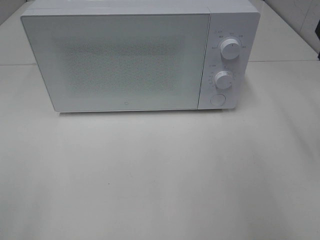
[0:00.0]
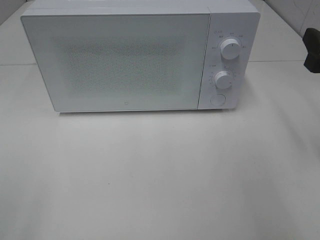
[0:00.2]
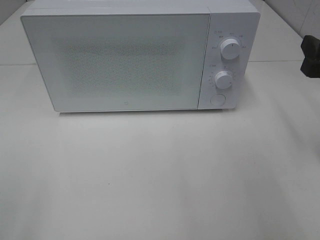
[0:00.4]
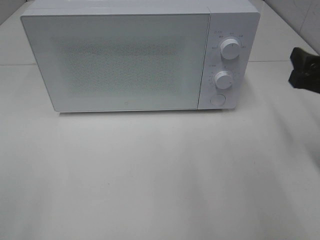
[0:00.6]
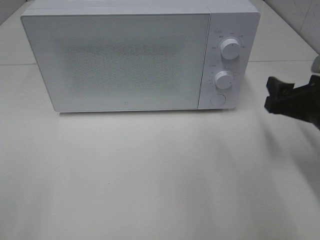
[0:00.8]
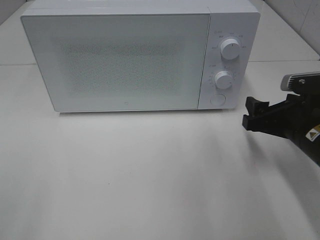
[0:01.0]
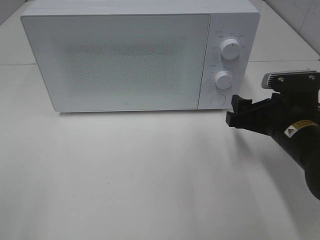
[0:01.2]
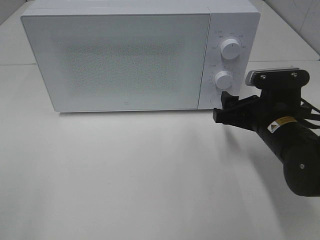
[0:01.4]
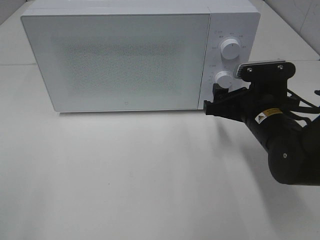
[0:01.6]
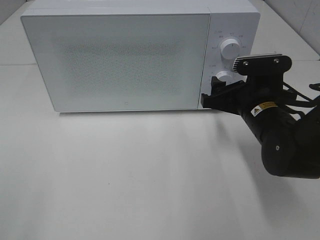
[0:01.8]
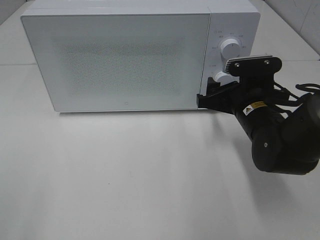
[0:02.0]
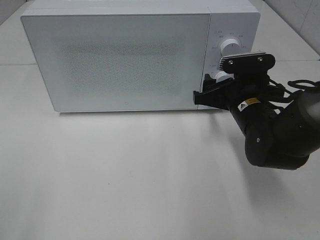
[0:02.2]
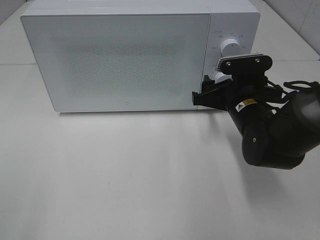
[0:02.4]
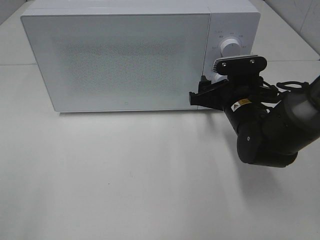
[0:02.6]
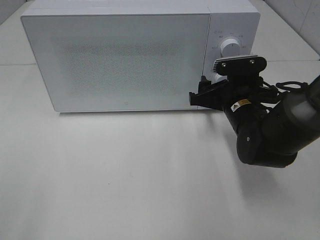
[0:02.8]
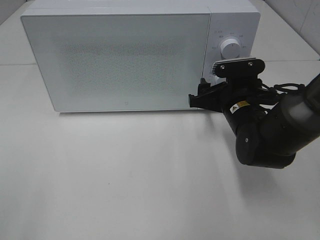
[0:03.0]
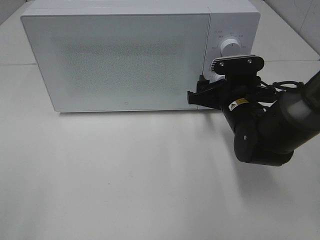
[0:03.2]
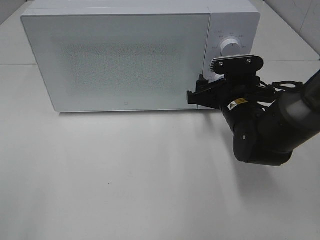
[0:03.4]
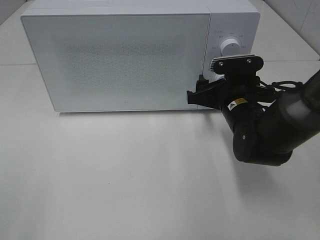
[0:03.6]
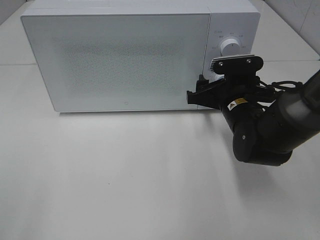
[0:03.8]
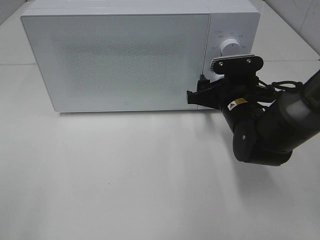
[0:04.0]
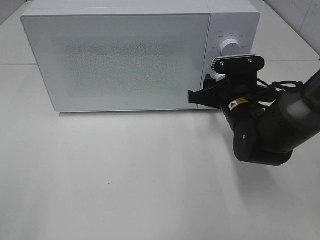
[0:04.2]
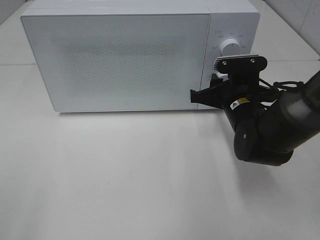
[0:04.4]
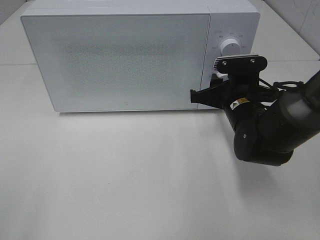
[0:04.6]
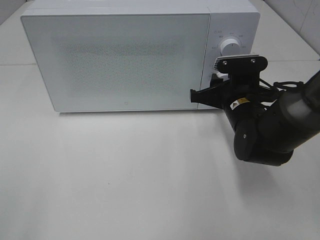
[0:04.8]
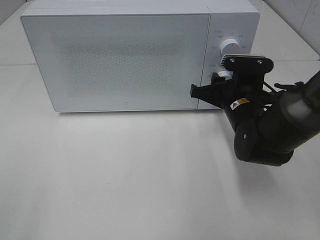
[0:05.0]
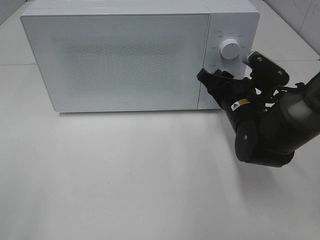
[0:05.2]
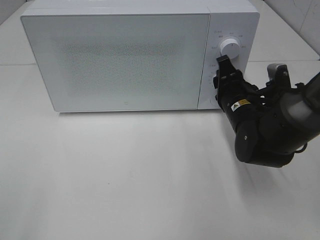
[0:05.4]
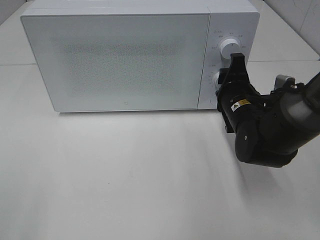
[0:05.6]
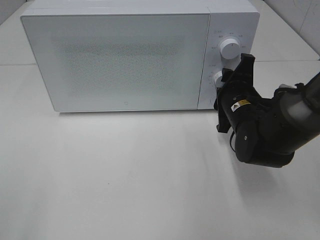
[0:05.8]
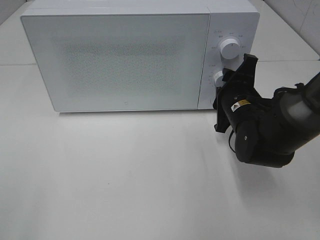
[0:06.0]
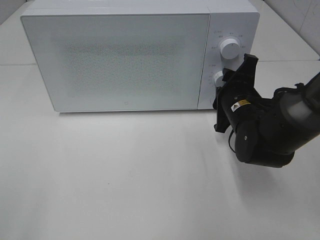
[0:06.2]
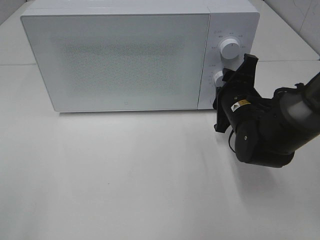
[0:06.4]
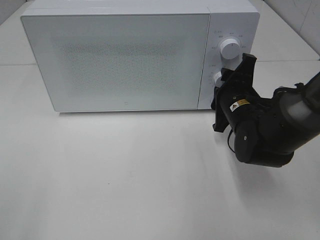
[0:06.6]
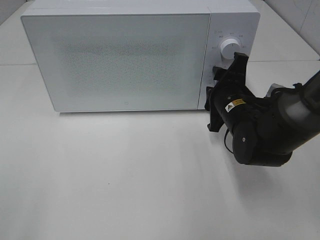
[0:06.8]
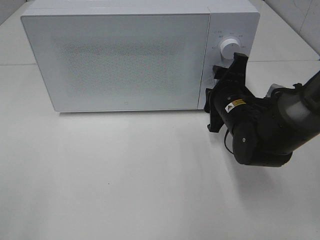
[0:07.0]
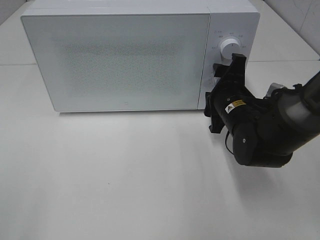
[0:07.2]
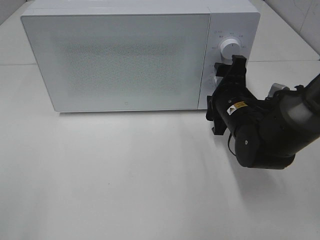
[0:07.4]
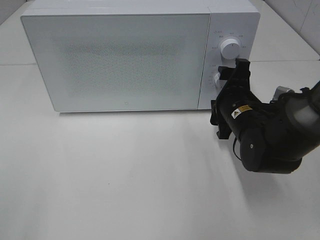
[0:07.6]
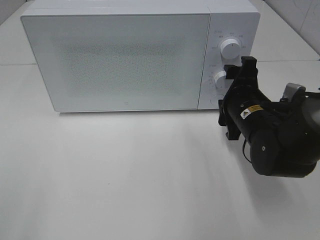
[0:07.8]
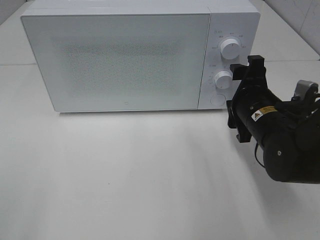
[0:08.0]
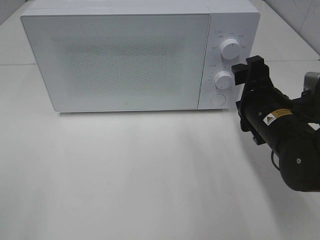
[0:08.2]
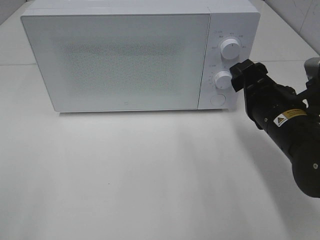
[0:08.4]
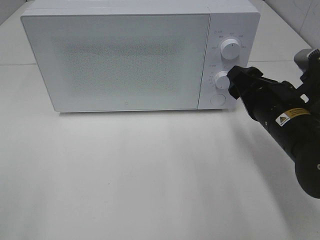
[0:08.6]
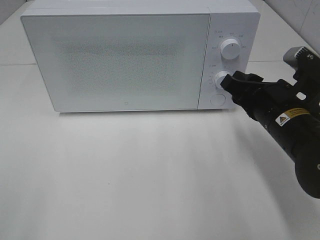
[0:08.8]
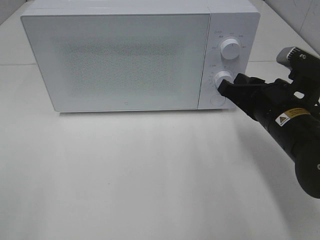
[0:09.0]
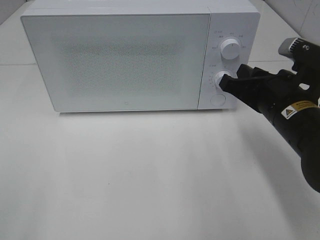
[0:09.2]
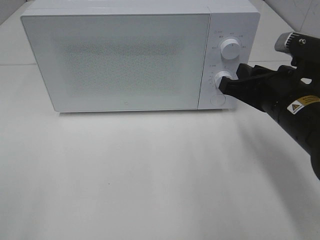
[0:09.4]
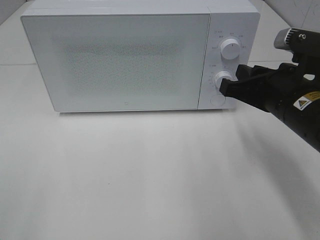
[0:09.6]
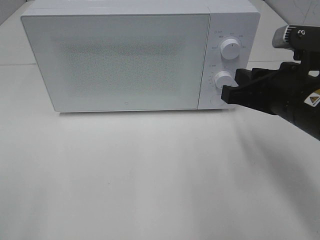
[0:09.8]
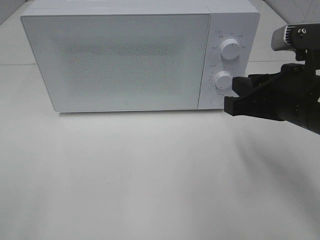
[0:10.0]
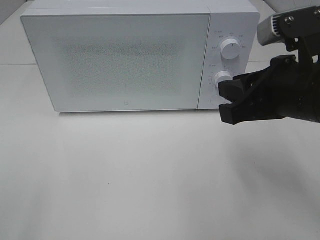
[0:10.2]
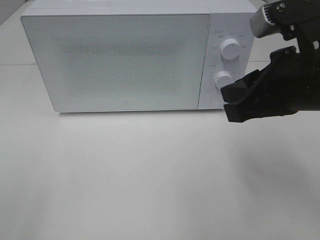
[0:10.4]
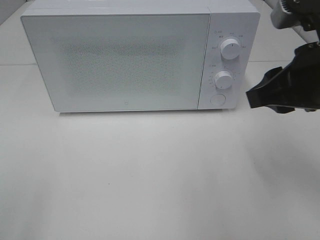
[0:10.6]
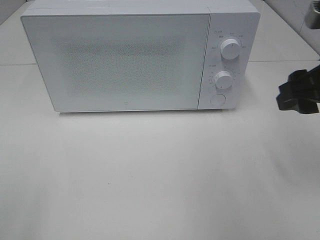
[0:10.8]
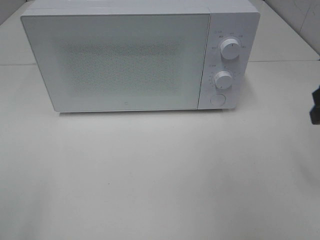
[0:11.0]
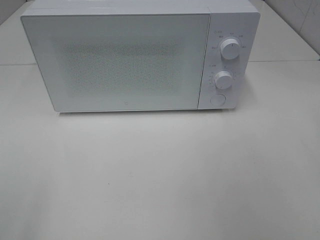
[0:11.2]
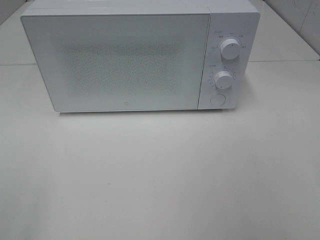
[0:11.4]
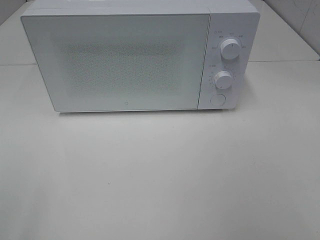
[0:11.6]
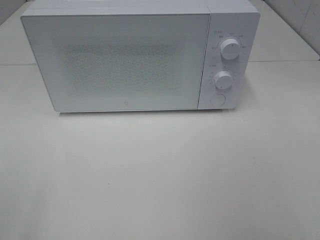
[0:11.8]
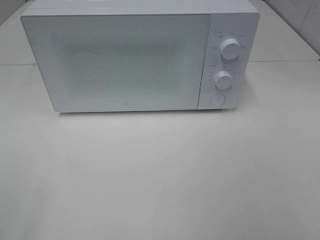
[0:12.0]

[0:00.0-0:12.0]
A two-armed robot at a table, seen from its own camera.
Task of the whole recording: Heat the burger.
Step, 0:00.0 to 0:06.8: Right hand: twist timer button.
0:00.0 to 0:01.6: The right gripper shifts about 20 cm downward, to the left and forward.
0:01.6 to 0:03.0: The right gripper changes place by about 5 cm.
0:03.0 to 0:04.4: The right gripper closes up.
0:06.0 to 0:07.6: There are only small adjustments of the grippers.
0:07.6 to 0:09.0: The right gripper is displaced backward by some 5 cm, and closes up.
0:09.0 to 0:10.4: The right gripper shifts roughly 10 cm upward.
0:10.4 to 0:12.0: The right gripper is displaced backward and to the right by roughly 25 cm, and opens.

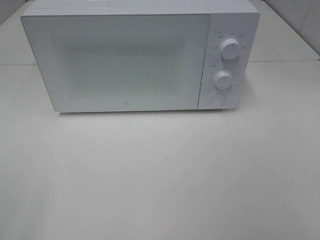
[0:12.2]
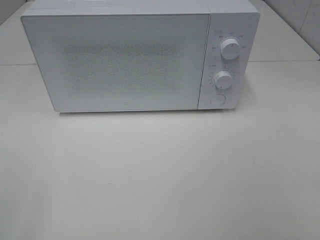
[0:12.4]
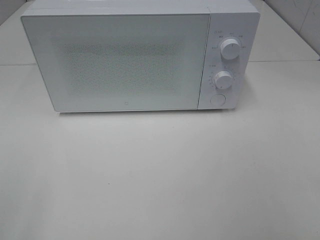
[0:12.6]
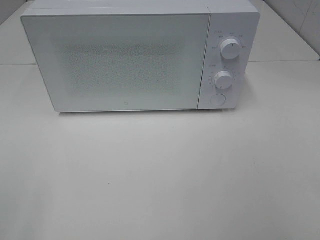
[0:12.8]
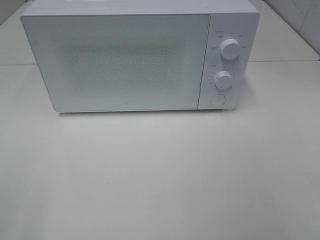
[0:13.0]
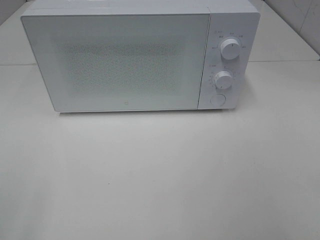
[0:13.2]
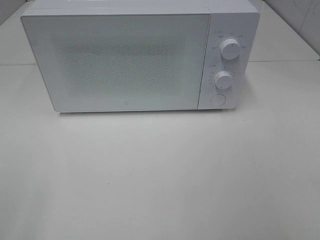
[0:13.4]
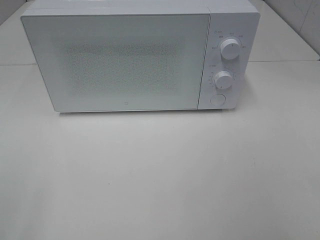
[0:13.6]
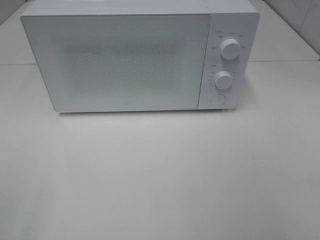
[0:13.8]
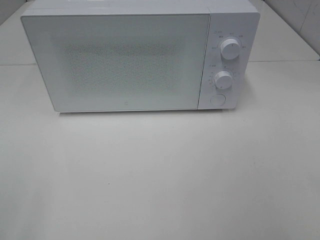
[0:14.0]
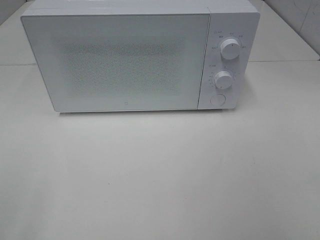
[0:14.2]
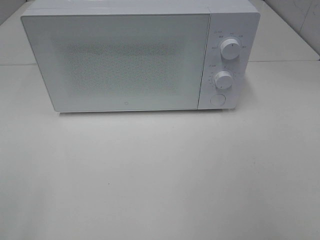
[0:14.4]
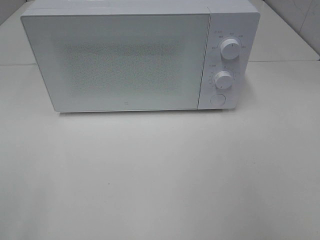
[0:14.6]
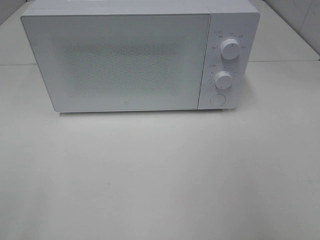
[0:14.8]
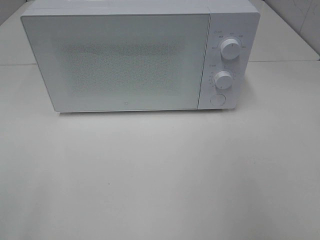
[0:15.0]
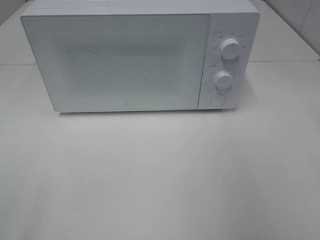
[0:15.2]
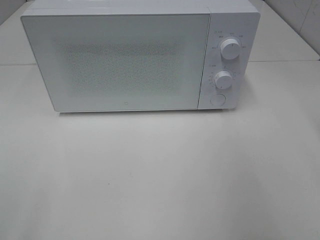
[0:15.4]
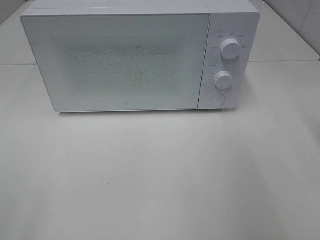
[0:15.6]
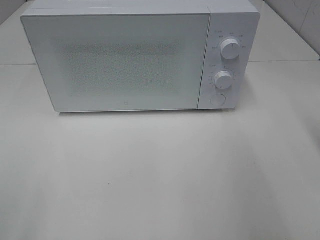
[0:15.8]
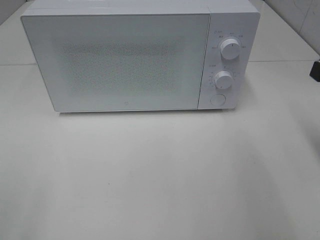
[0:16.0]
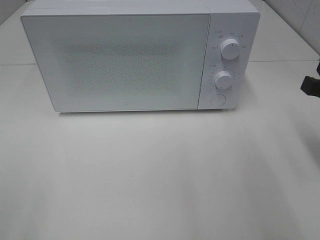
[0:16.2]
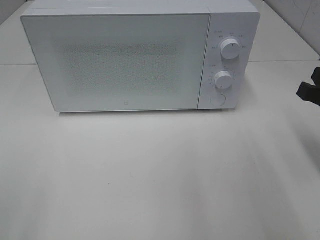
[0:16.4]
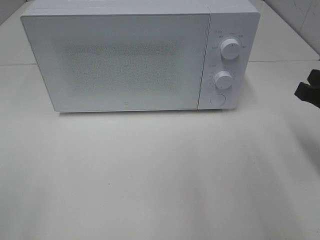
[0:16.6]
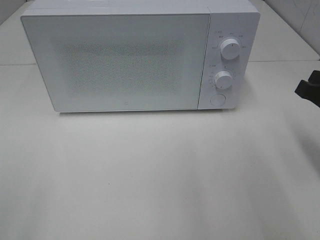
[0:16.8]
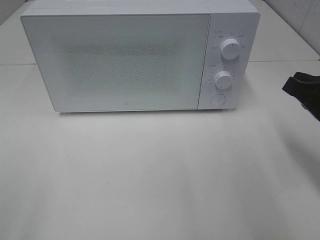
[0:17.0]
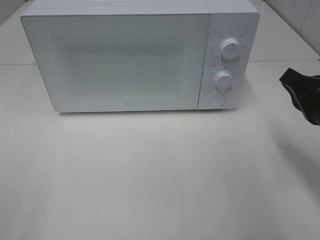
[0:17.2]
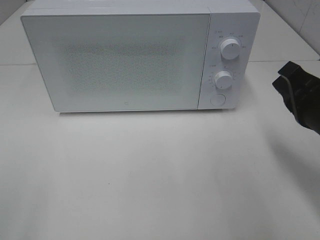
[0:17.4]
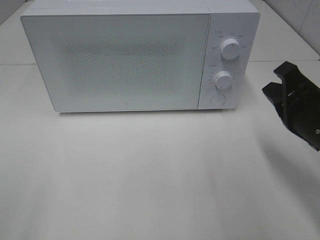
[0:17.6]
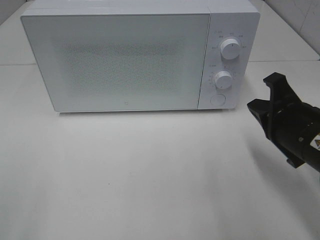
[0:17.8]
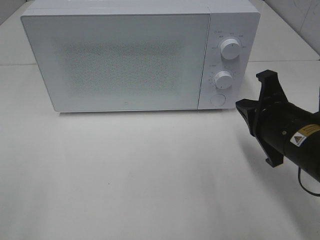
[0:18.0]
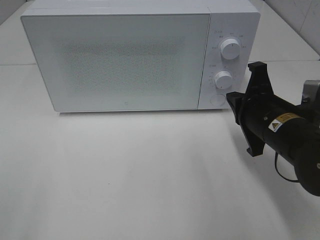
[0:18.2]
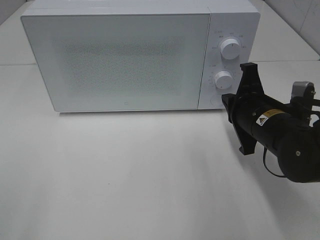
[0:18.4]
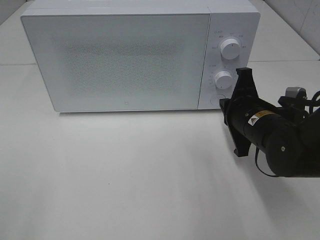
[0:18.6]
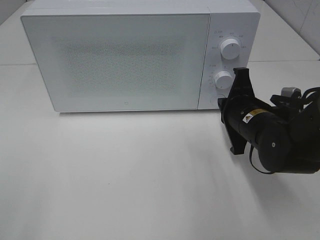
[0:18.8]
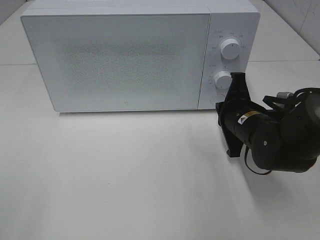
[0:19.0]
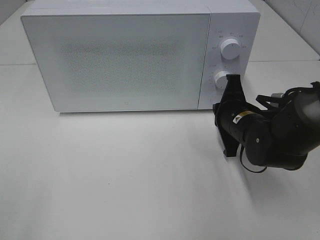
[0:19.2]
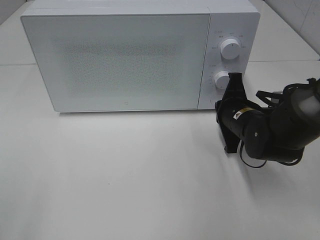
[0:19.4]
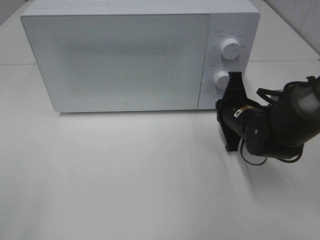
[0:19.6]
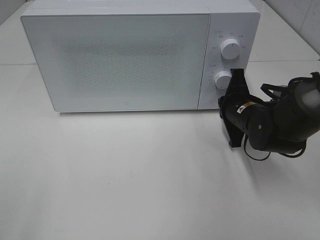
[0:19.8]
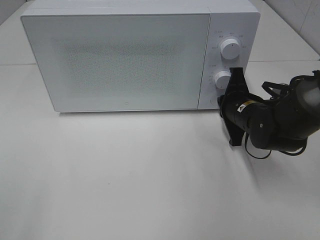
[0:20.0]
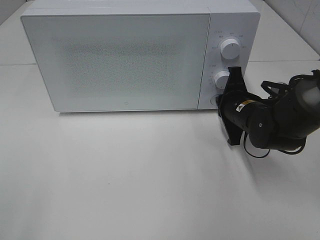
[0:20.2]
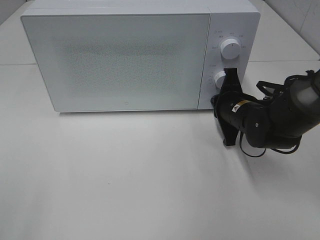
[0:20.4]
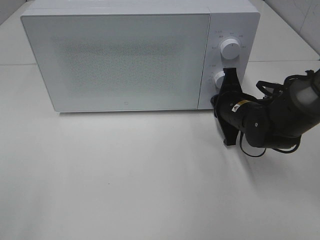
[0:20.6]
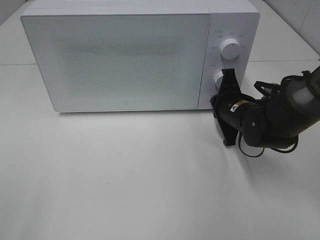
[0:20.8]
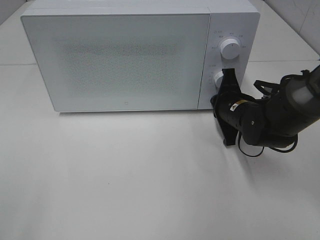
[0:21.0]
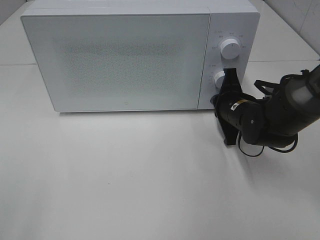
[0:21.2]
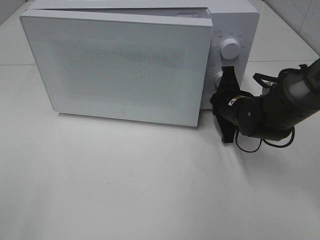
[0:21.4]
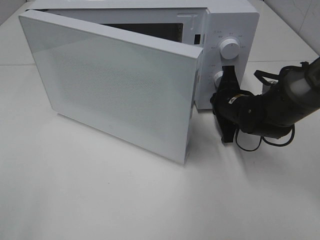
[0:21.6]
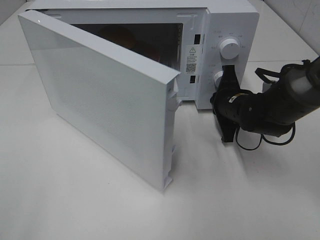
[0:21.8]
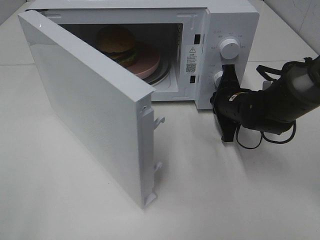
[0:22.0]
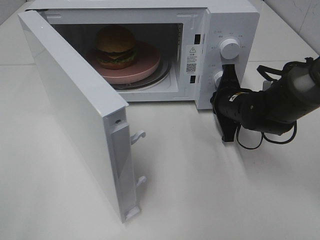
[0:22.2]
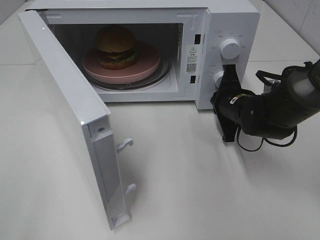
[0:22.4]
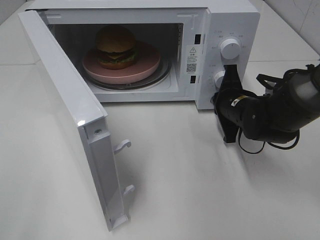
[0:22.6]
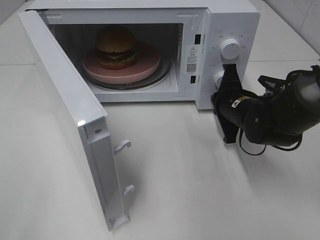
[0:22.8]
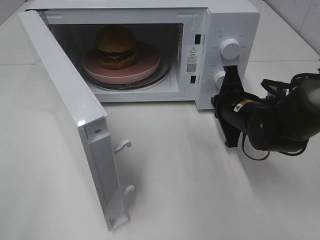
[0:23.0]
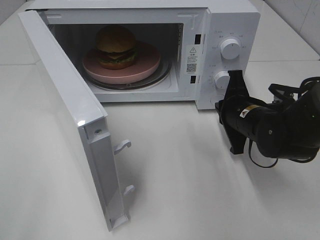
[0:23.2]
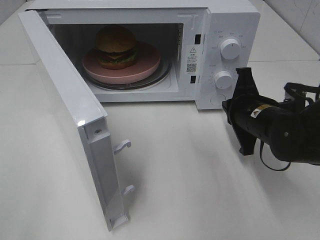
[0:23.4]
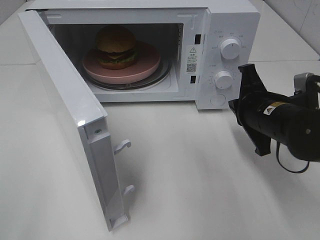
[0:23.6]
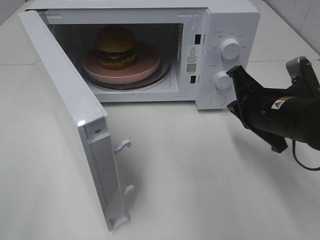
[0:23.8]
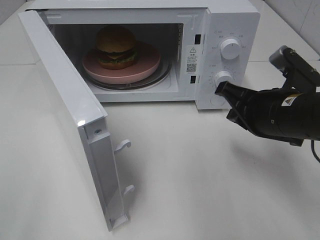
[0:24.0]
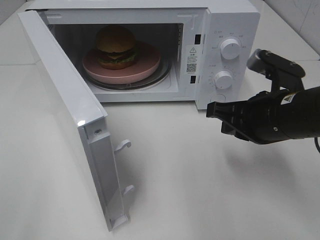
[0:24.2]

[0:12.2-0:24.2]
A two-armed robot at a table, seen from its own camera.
Task of the whole recording: Heat the burger.
Step, 0:12.2 to 0:22.8: Right hand: press the switch.
0:15.2 to 0:16.6: The right gripper goes some 15 cm downward and forward.
0:16.6 to 0:18.2: The right gripper is displaced to the left by approximately 10 cm.
0:18.2 to 0:19.8: The right gripper is displaced forward and downward by about 10 cm.
0:19.8 to 0:21.2: The grippers stay close to where they were, moving slightly.
0:22.6 to 0:24.2: The right gripper goes roughly 15 cm backward and upward.
